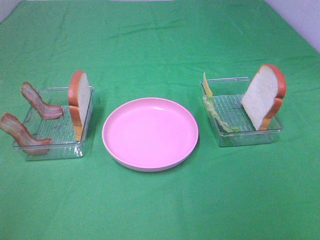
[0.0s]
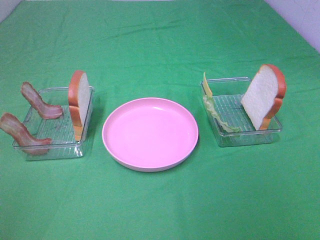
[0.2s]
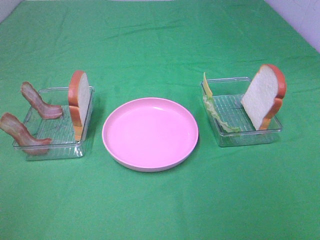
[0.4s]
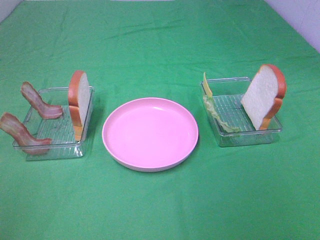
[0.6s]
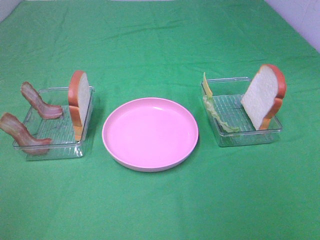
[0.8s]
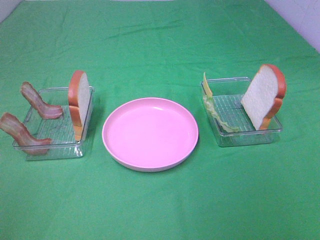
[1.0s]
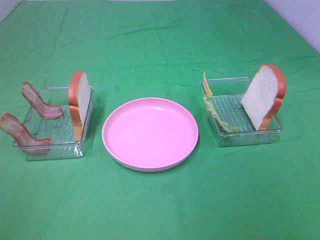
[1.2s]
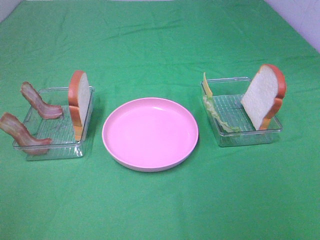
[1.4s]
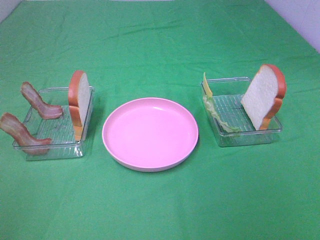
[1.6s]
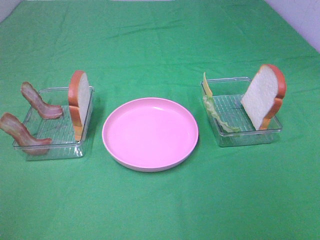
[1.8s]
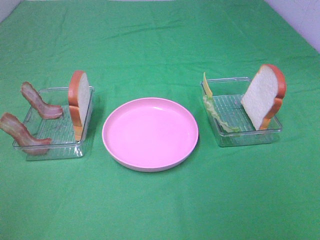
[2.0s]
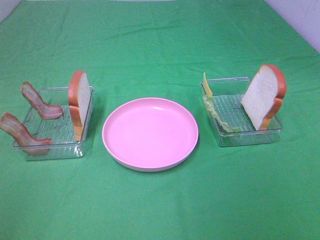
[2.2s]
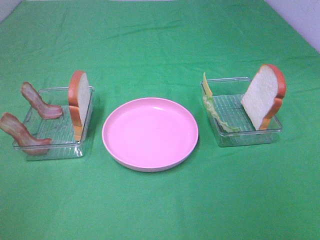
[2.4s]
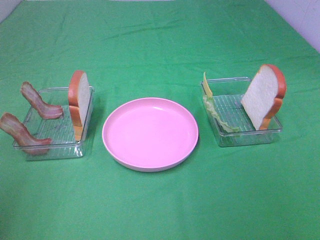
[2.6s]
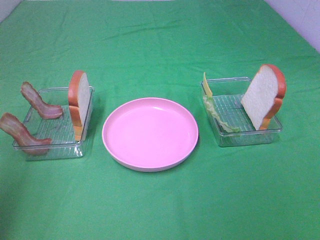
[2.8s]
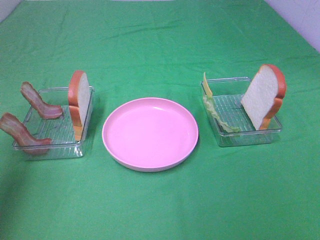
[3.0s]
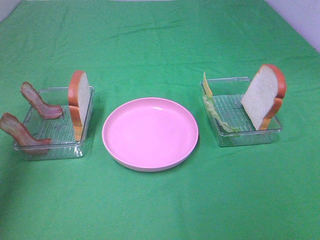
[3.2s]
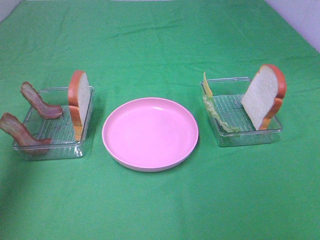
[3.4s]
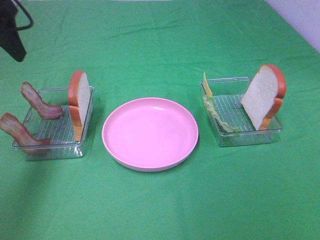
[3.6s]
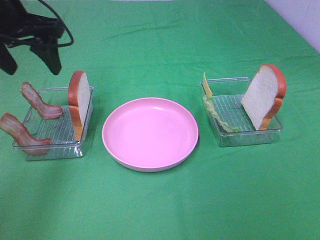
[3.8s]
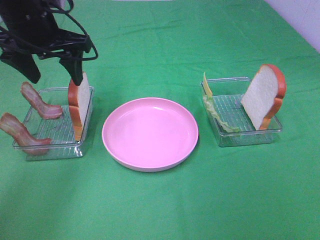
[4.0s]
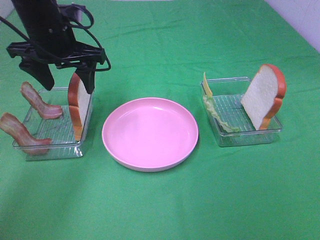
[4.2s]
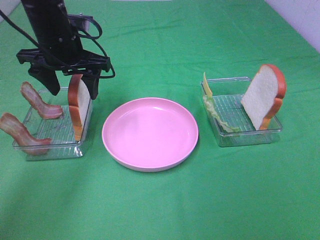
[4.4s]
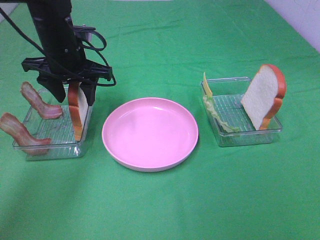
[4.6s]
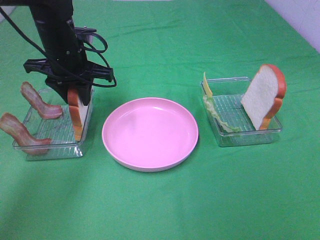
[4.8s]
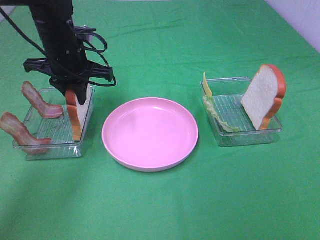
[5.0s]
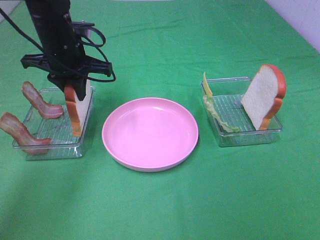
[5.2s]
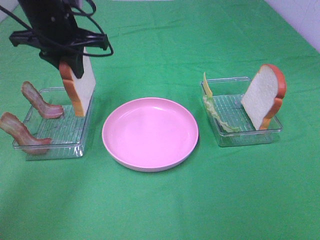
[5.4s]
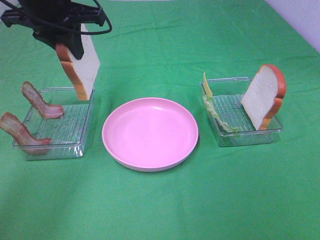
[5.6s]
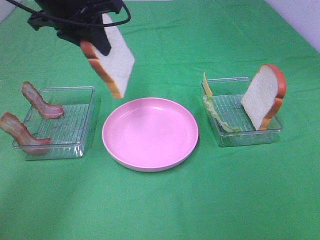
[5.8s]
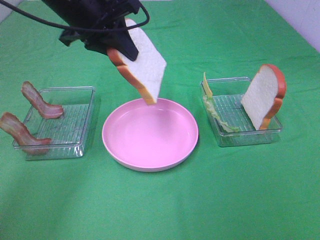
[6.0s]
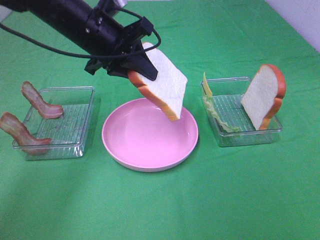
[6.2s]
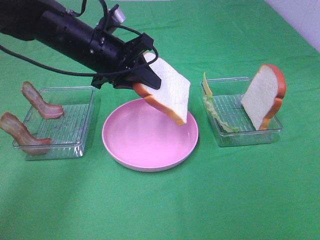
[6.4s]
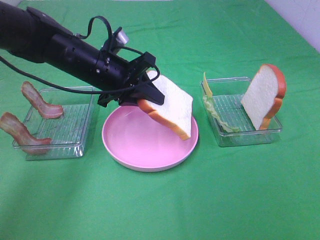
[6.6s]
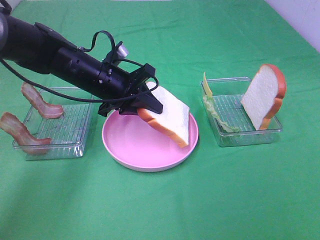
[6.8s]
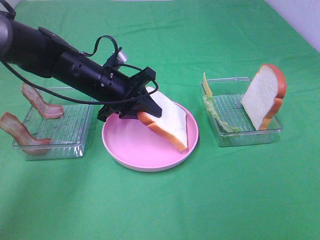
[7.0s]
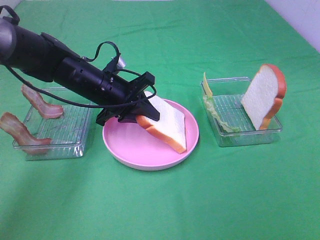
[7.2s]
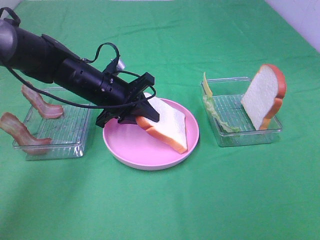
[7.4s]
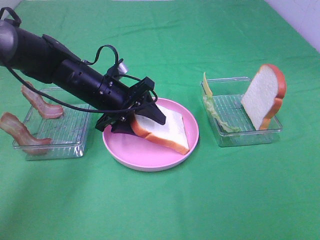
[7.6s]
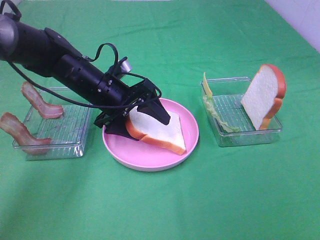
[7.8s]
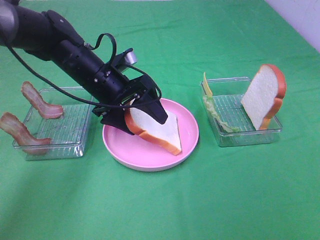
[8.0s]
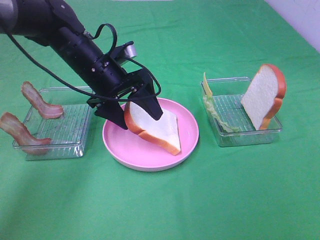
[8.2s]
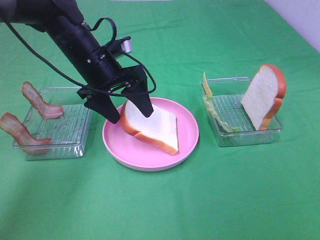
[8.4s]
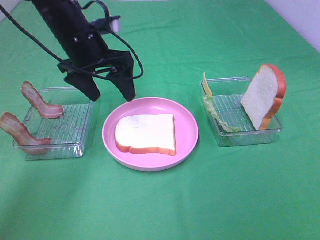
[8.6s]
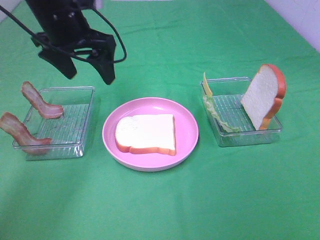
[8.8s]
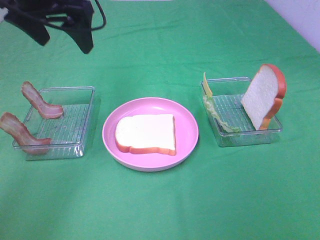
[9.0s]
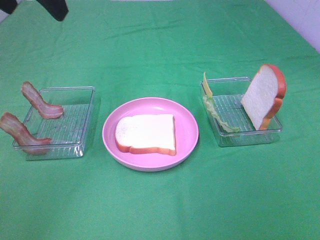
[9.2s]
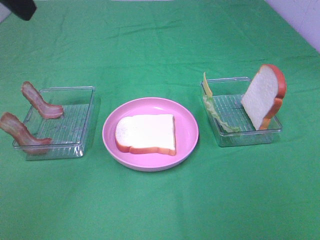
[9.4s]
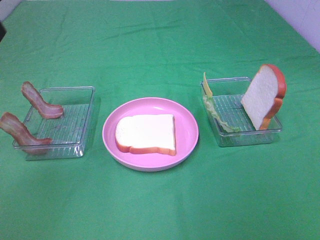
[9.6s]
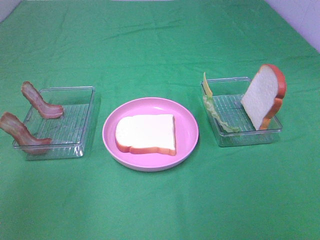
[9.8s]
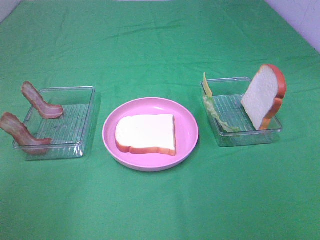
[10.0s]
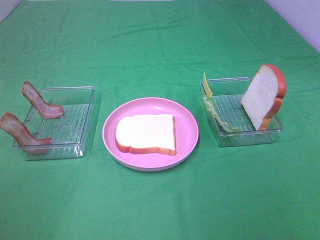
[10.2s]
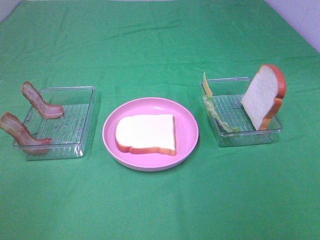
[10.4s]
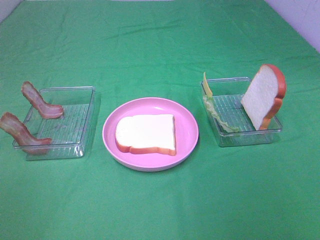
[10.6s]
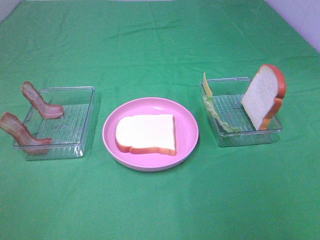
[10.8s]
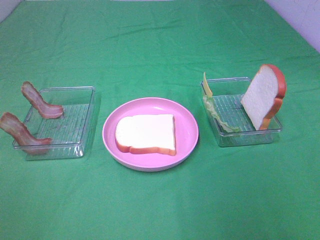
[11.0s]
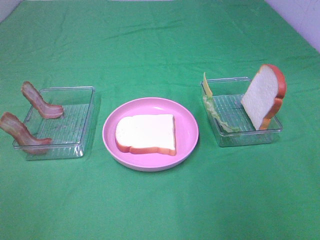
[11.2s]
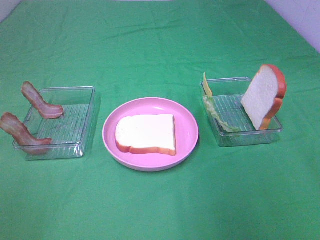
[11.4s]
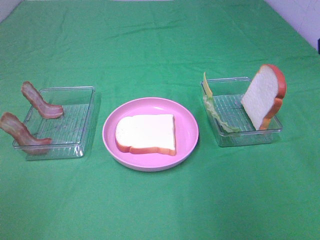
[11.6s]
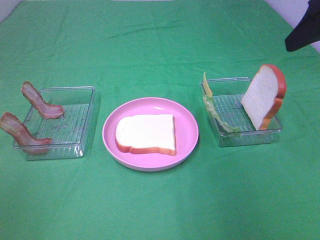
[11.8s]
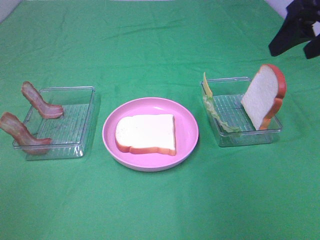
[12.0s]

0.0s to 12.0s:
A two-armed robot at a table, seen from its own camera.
Task of the whole recording: Make sandwiches.
Step, 0.0s to 4.8s: Left hand:grab the bread slice.
Step, 5.0s to 8.6s: Left hand:place the bread slice on the plate.
0.0s to 1.6s: Both grippers stay about where they are.
1.6s to 3.0s: The left gripper shifts about 20 cm forward.
3.0s to 4.4s: The left gripper shifts approximately 30 cm forward, to the right and downward.
4.4s to 6.0s: The left gripper moves upward, some 5 cm, and closes up.
6.0s to 7.6s: The left gripper travels downward by roughly 15 cm, and opens its fingers.
7.6s to 9.0s: The left gripper is displaced upward by some 20 cm.
9.0s to 10.4s: The left gripper travels backward by some 35 cm.
10.4s to 12.0s: The right gripper heads forward, covering approximately 30 cm.

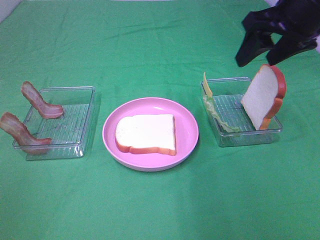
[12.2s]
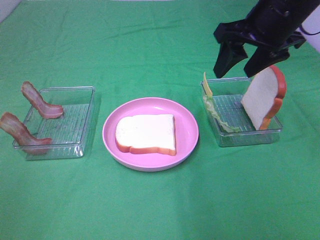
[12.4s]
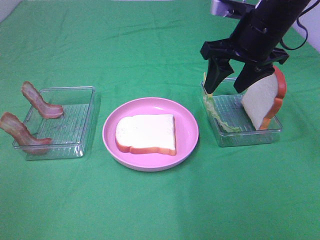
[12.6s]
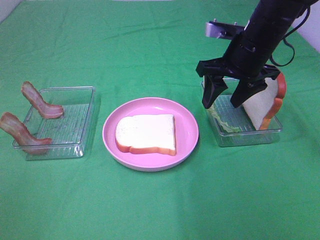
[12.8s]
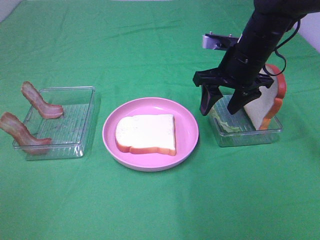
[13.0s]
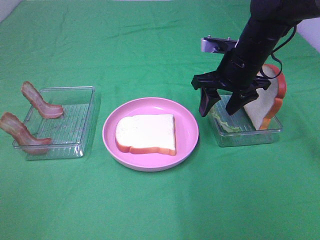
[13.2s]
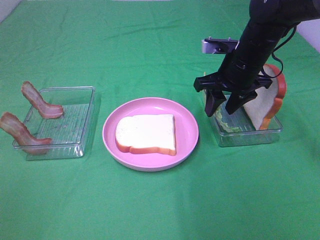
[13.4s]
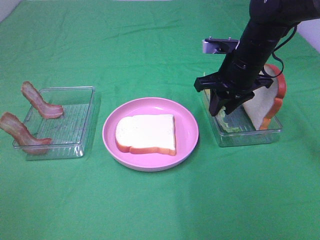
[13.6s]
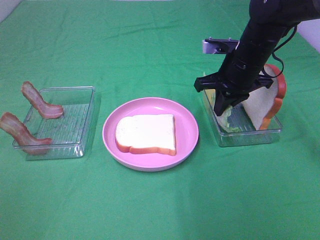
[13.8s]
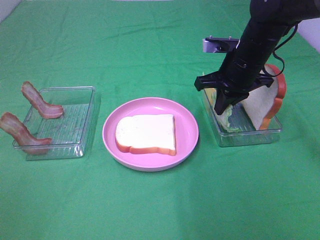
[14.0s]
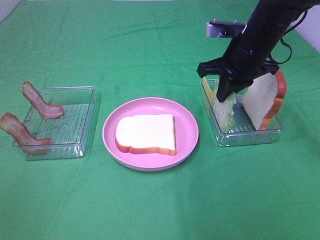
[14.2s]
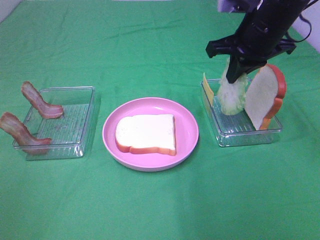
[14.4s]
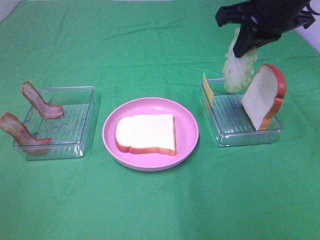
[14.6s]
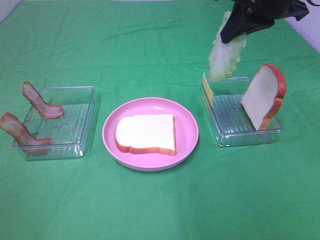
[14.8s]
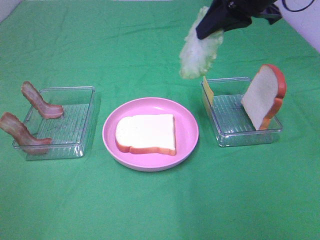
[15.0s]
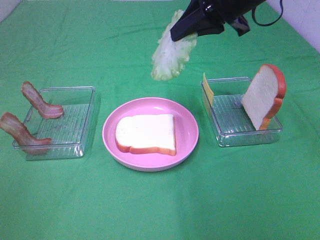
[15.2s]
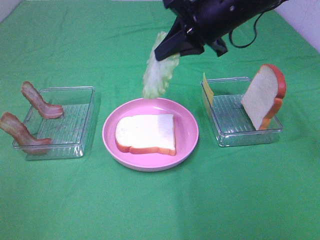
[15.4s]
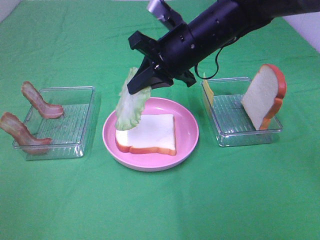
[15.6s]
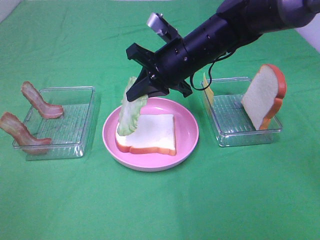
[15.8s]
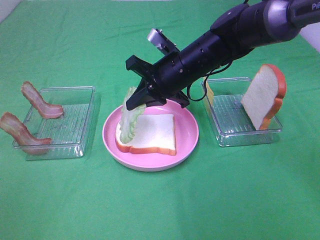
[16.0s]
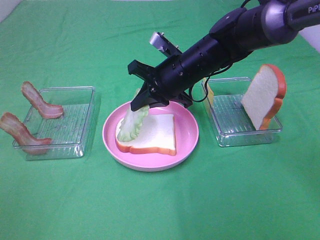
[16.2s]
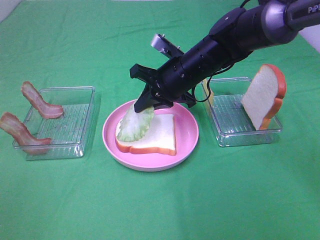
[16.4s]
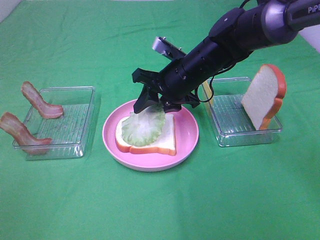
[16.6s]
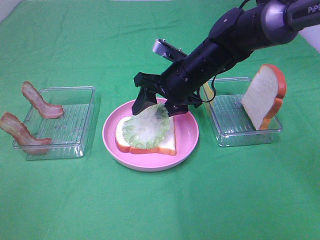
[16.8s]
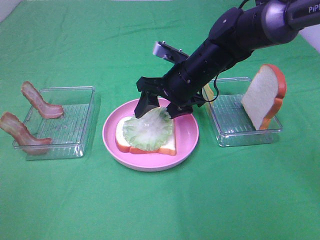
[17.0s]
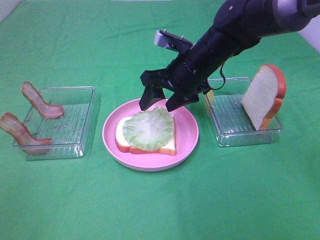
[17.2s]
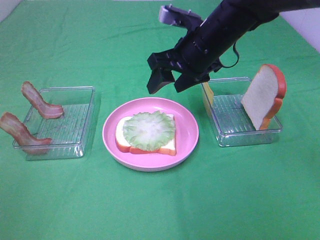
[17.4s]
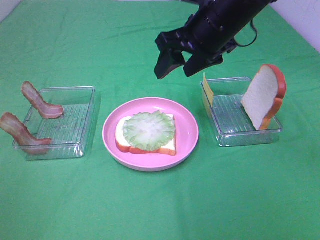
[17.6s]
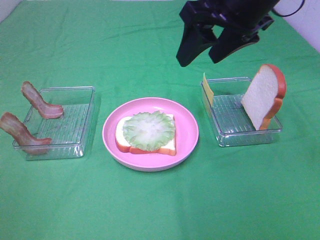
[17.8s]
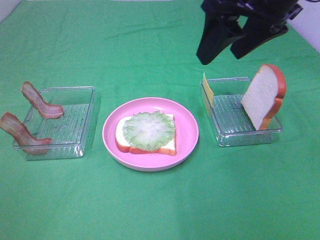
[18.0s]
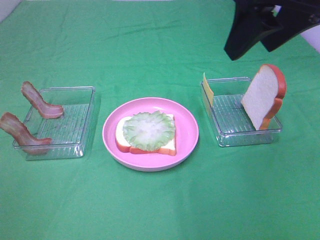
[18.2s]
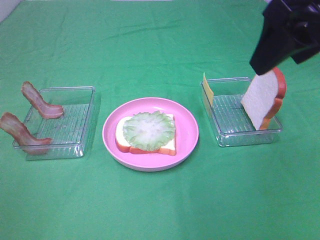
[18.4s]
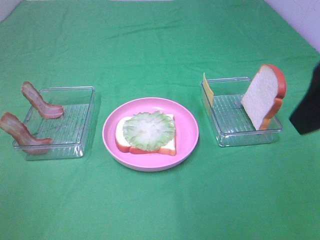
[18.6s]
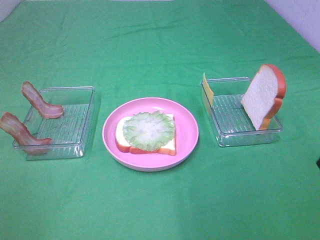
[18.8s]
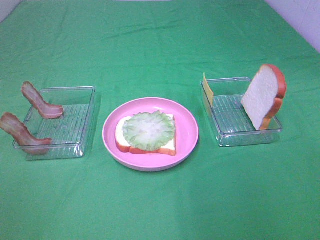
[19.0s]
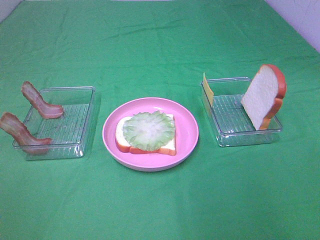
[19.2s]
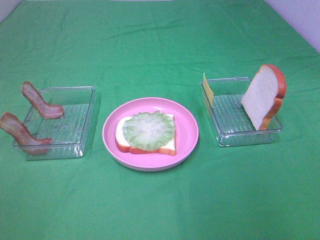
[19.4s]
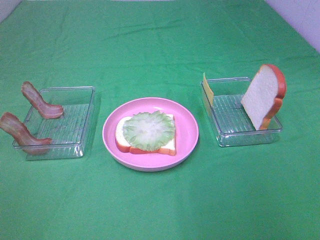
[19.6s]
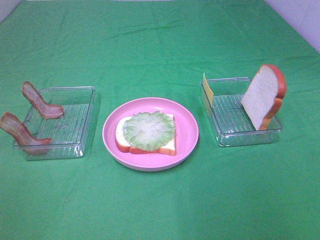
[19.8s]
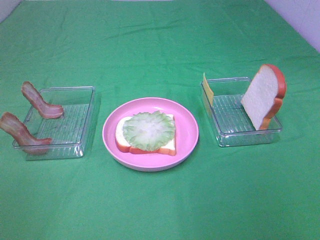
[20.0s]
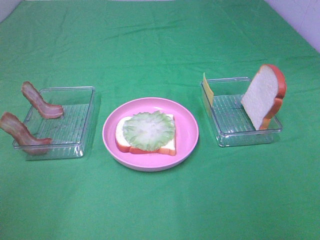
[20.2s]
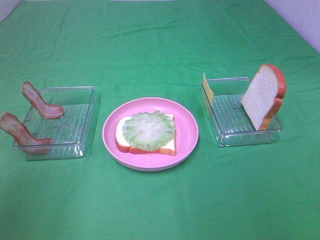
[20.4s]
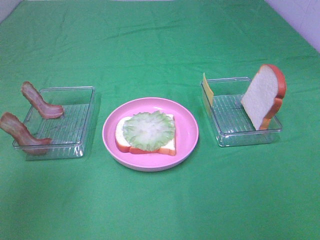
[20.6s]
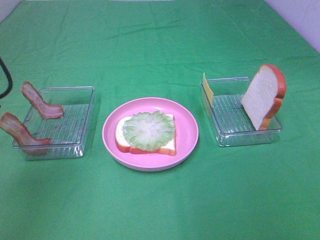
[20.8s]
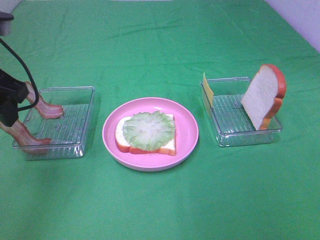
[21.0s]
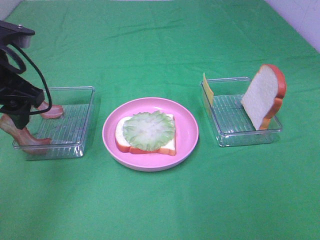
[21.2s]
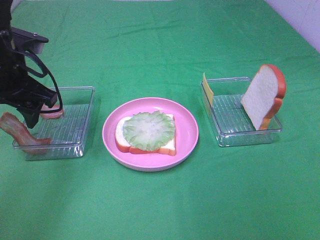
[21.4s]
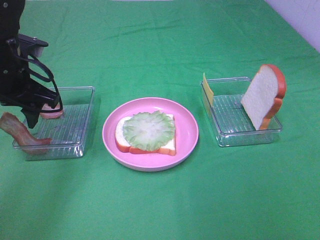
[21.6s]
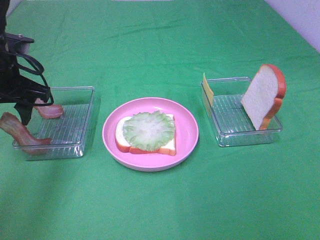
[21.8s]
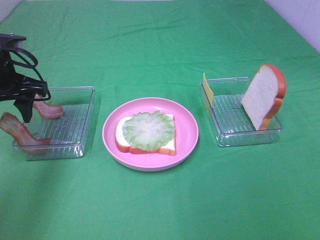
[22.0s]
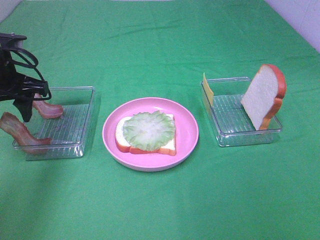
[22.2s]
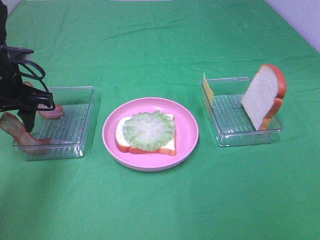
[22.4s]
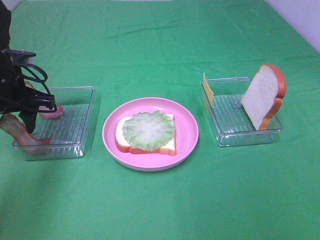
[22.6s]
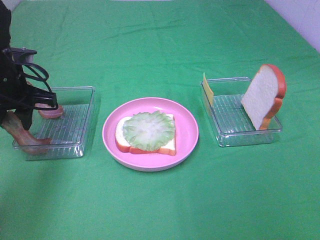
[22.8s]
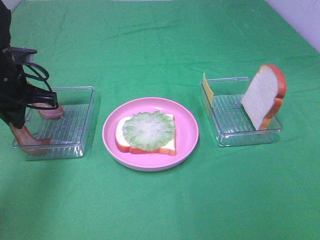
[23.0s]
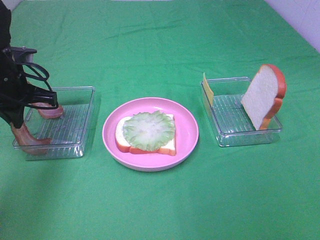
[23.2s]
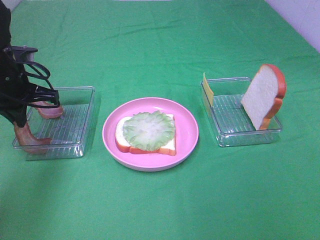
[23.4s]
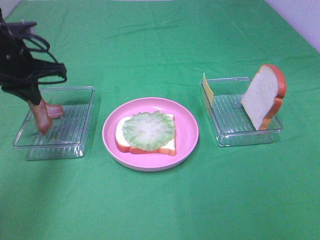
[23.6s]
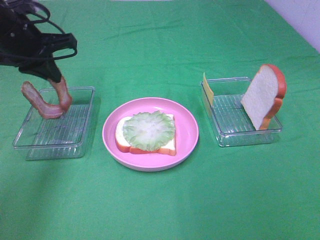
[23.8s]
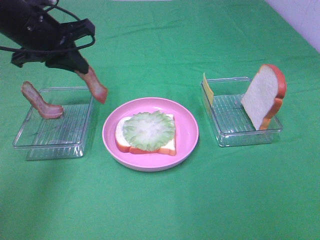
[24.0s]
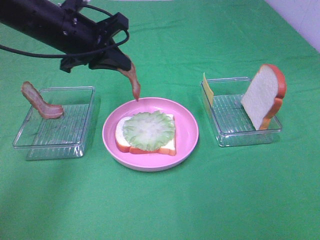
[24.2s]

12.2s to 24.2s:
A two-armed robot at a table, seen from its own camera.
Task of the whole recording: Make sandwiches.
Step, 14.0s to 17.2s: Right hand:place the lettuce slice on the bread slice.
Step, 17.4s to 23.2s: Left hand:grab the bacon.
12.2s to 13.8s: The right gripper goes roughly 15 cm downward and forward, and closes.
13.8s to 15.2s: The right gripper moves upward, roughly 15 cm.
15.2s to 16.6s: The right gripper is displaced downward by roughly 15 cm, and opens up.
16.6s to 18.2s: The right gripper moves upward, backward and to the right, some 25 cm.
18.2s to 19.8s: The right gripper goes about 25 cm backward and to the right.
19.8s to 21.2s: The left gripper travels forward by some 30 cm.
21.2s to 22.6s: The left gripper travels downward and forward by roughly 10 cm.
22.6s to 24.2s: The left gripper shifts about 10 cm to the right and upward, and closes up.
